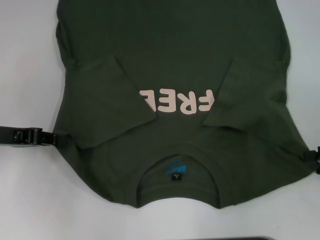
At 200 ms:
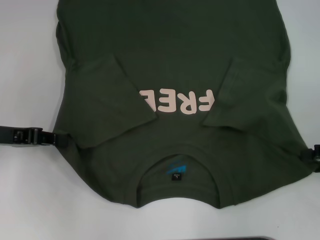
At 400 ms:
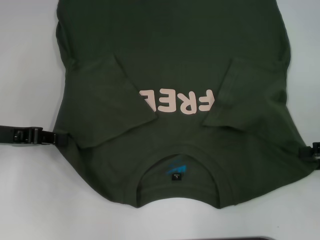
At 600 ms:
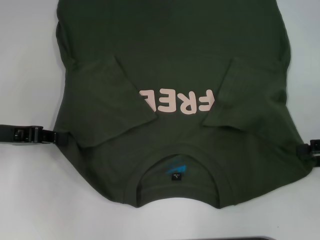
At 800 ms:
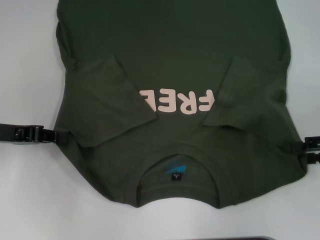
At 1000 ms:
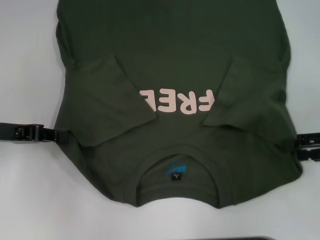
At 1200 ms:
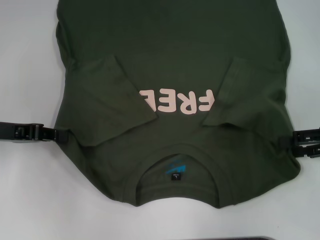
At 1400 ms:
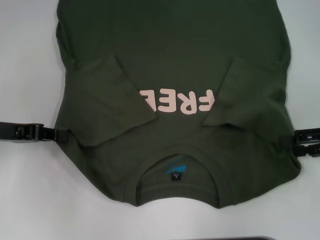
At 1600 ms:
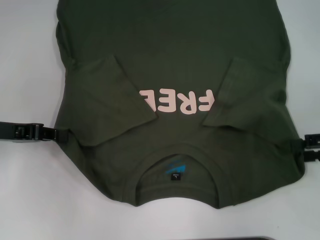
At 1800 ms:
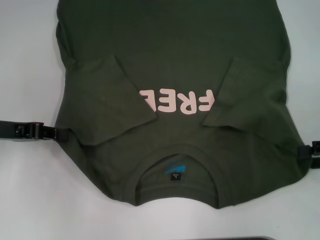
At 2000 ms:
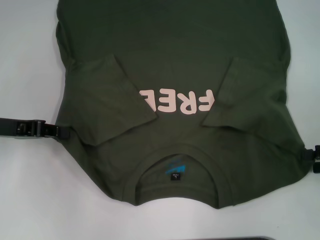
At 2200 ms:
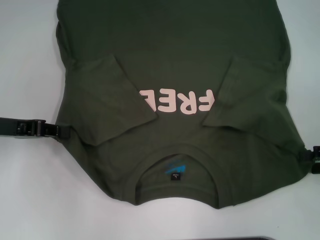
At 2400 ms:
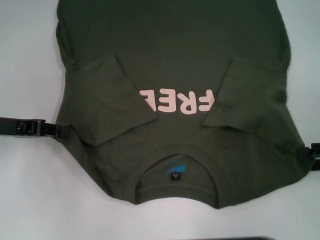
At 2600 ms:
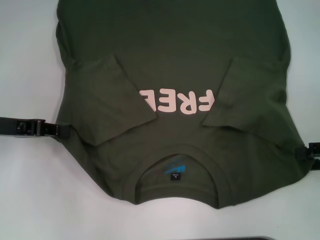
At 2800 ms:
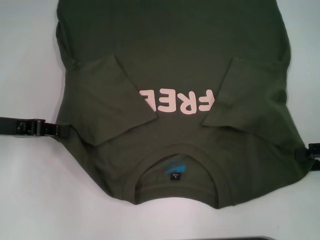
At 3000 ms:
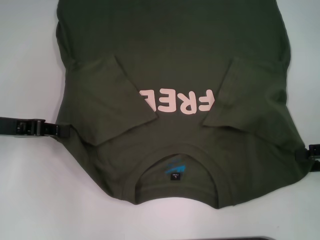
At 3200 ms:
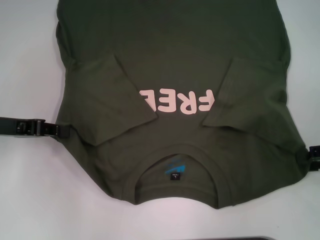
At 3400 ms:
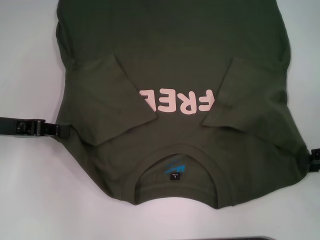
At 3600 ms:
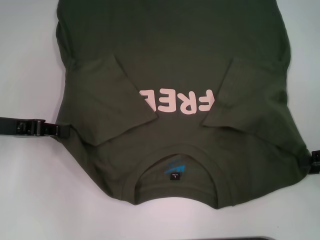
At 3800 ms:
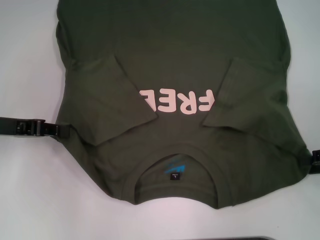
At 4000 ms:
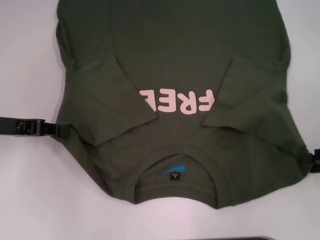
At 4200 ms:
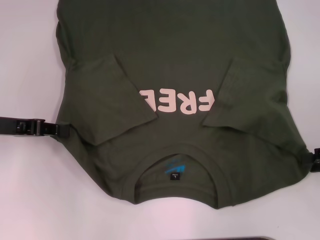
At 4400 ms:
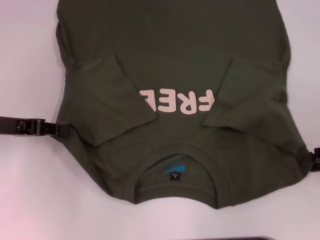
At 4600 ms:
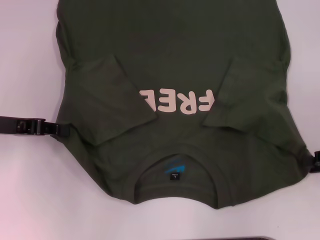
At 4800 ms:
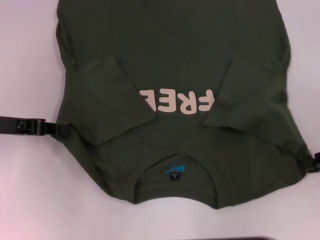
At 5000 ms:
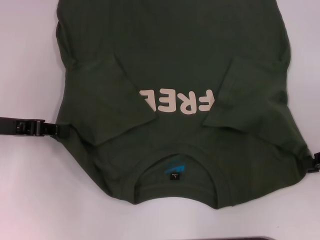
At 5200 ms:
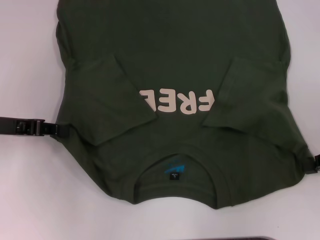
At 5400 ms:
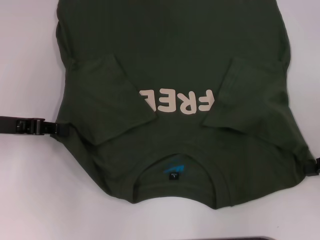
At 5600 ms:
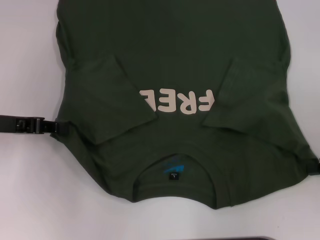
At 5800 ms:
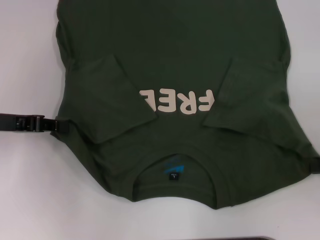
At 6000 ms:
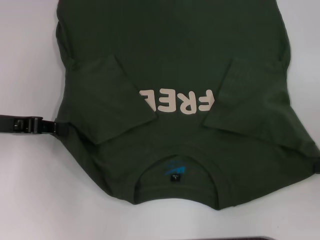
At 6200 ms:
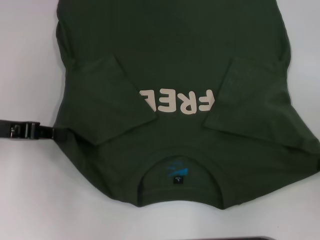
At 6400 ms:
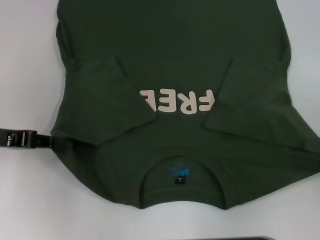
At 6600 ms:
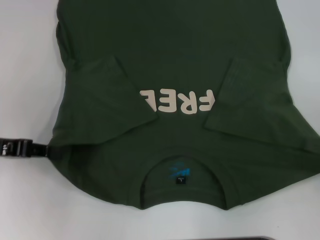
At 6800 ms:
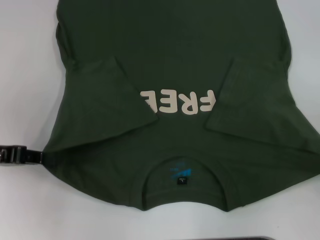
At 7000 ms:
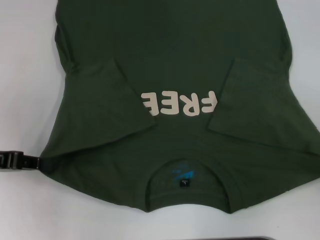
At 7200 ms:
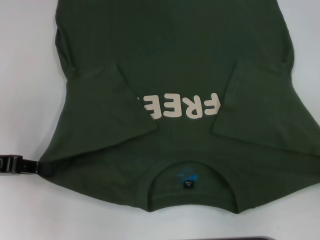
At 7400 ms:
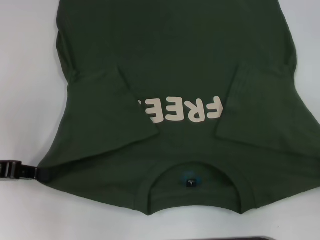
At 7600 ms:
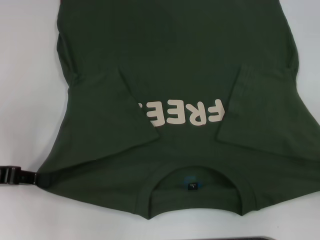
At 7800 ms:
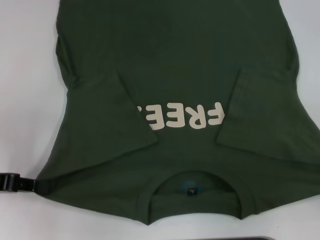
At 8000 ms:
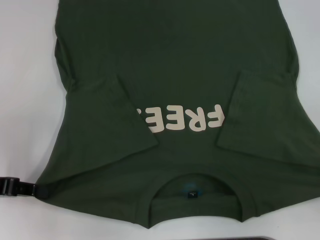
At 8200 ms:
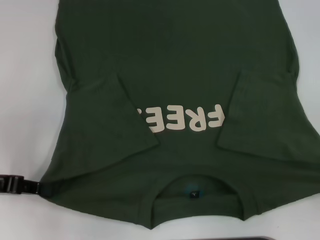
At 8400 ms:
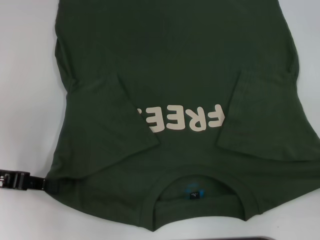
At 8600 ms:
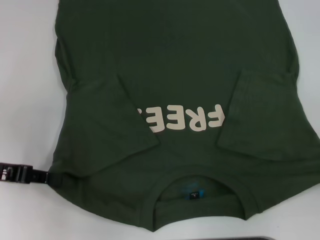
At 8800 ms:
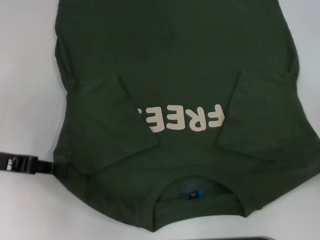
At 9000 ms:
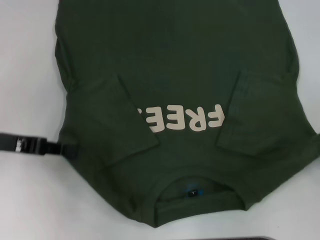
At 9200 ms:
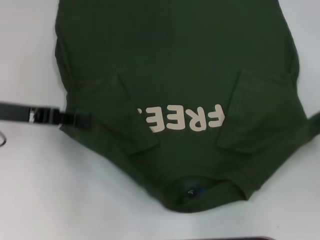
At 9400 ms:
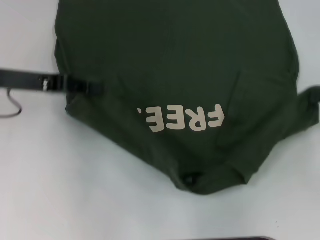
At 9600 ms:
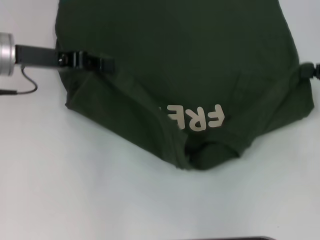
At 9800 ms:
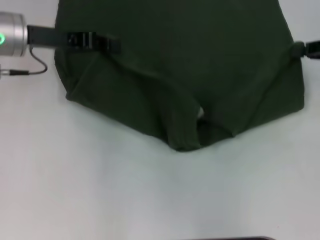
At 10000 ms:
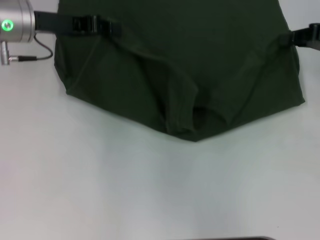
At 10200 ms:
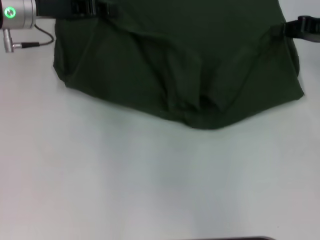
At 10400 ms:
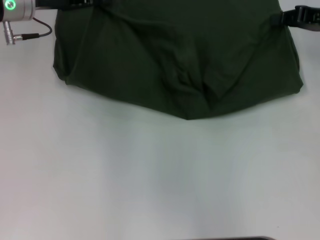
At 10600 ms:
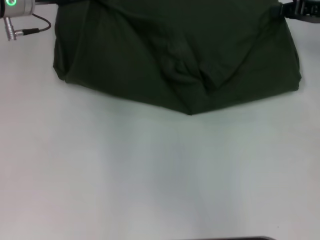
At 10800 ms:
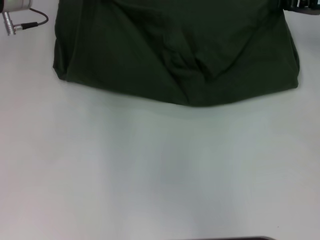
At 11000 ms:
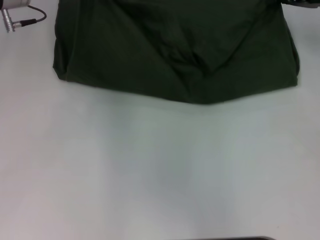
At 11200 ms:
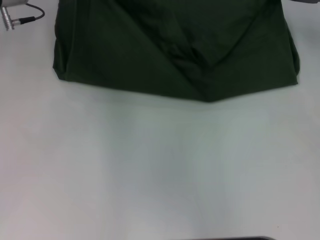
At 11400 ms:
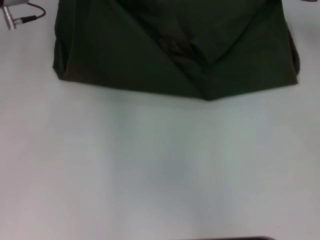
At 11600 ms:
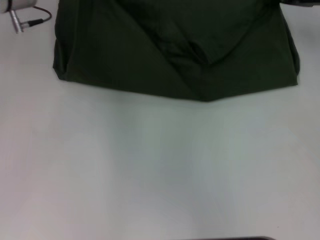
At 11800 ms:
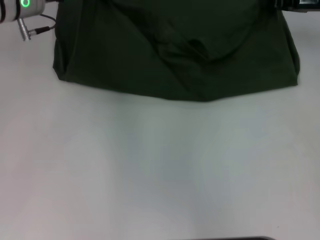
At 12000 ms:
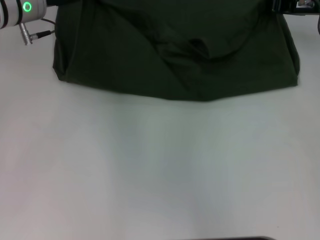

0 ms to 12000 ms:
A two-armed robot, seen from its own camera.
Step, 0 ms to 3800 ms: Grab the bottom right corner with your right hand.
0 ms to 3000 ms: There are only small adjustments of the grippers.
3000 ms to 4400 ms: The right gripper closes its fingers.
4400 ms to 6000 ms: The right gripper closes its fingers.
6000 ms to 7600 ms: The two grippers go approximately 5 cm backward.
7600 ms to 9000 ms: The left gripper ends up approximately 5 cm from where it was. The right gripper moves forward, about 5 cm.
9000 ms to 10400 ms: The right gripper travels forward and to the left by approximately 20 cm. Meanwhile the left gripper heads forward, to the right and upward, covering roughly 20 cm.
10400 ms to 12000 ms: The right gripper ends up roughly 5 cm from where it was.

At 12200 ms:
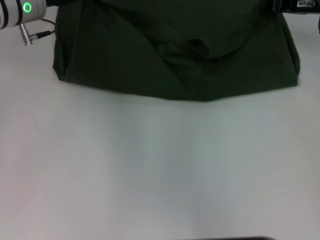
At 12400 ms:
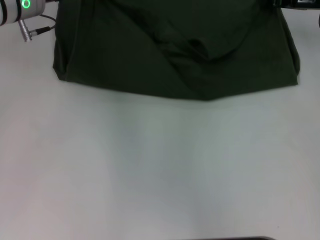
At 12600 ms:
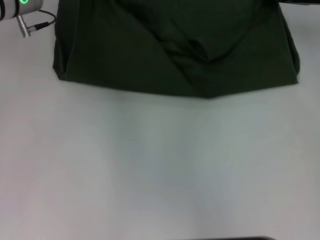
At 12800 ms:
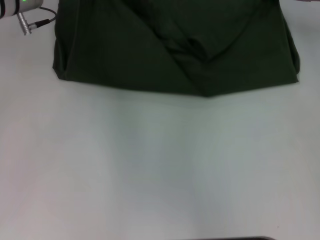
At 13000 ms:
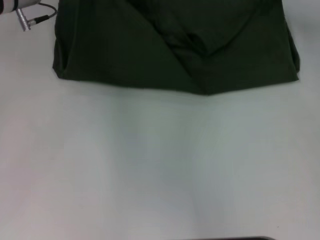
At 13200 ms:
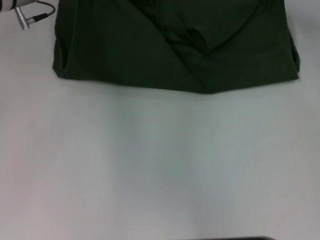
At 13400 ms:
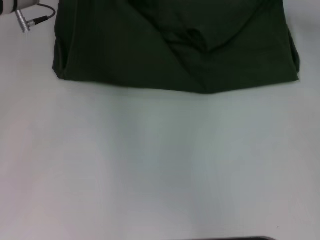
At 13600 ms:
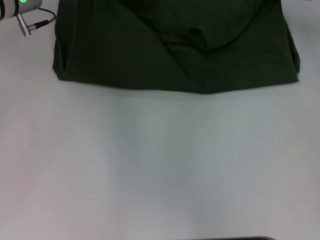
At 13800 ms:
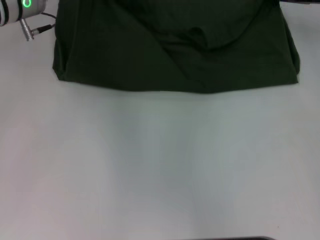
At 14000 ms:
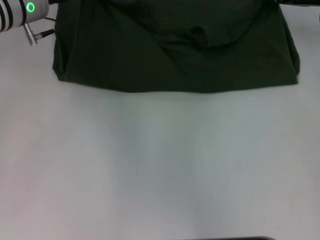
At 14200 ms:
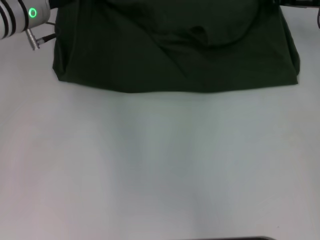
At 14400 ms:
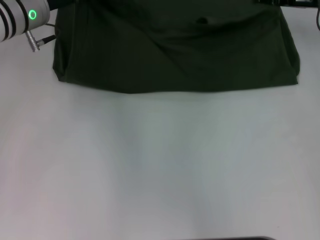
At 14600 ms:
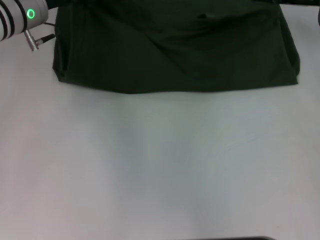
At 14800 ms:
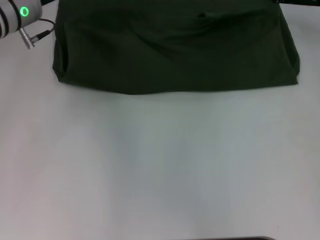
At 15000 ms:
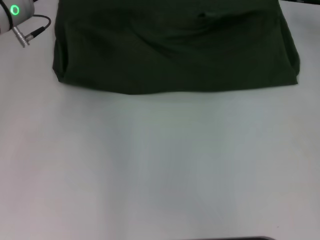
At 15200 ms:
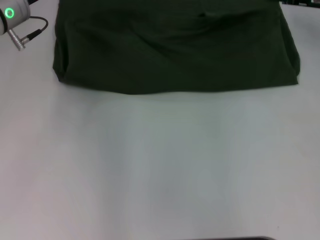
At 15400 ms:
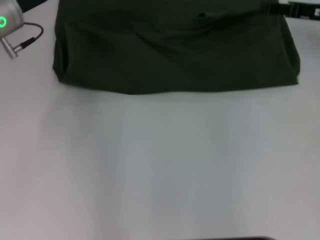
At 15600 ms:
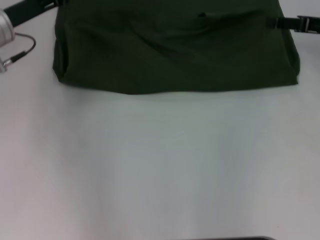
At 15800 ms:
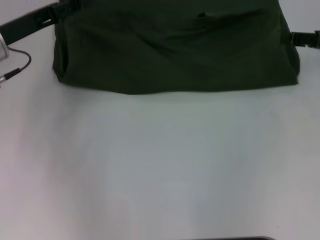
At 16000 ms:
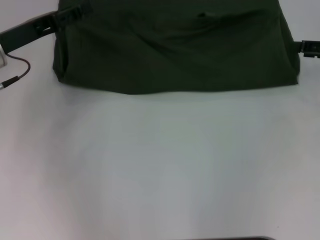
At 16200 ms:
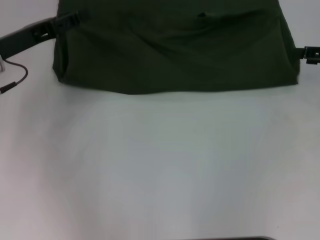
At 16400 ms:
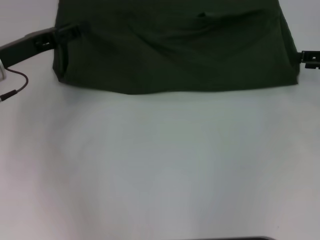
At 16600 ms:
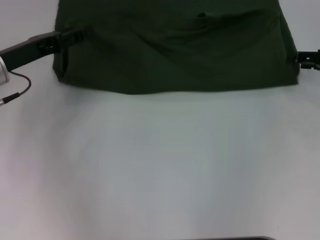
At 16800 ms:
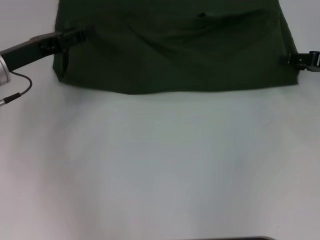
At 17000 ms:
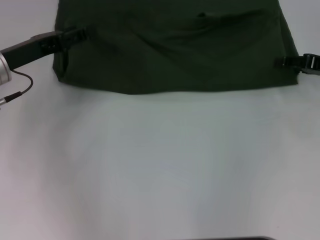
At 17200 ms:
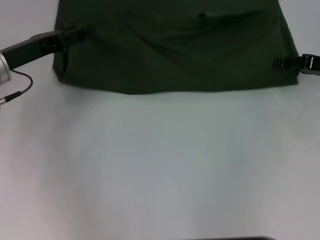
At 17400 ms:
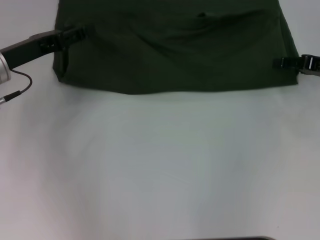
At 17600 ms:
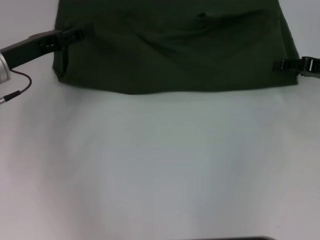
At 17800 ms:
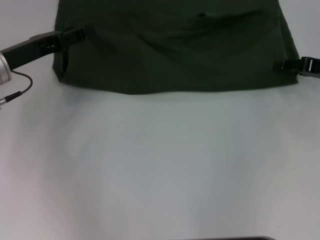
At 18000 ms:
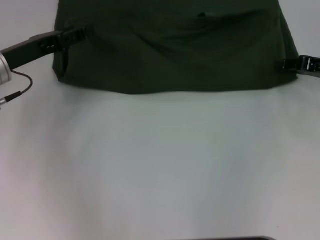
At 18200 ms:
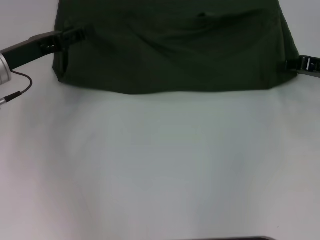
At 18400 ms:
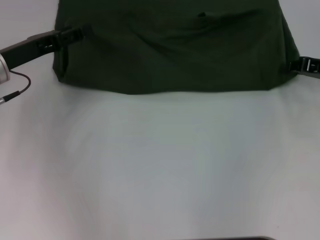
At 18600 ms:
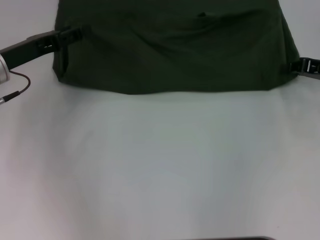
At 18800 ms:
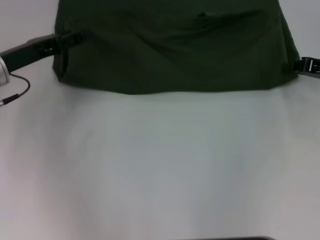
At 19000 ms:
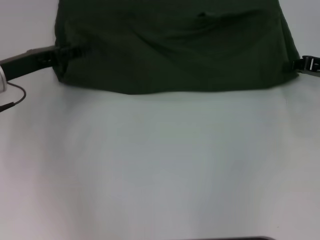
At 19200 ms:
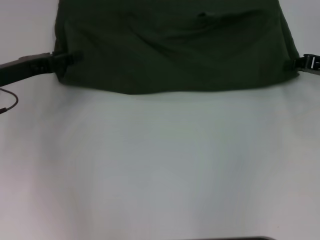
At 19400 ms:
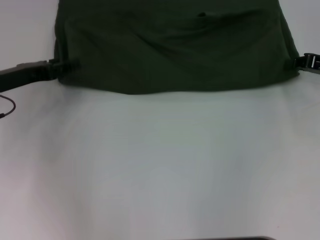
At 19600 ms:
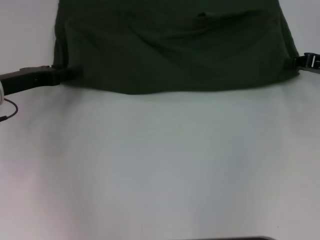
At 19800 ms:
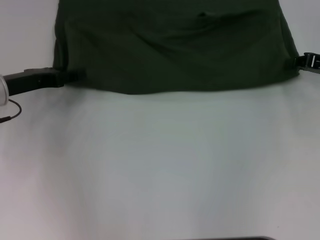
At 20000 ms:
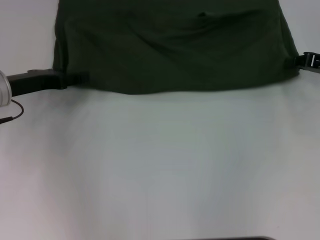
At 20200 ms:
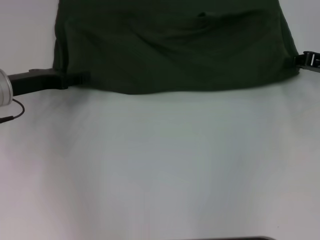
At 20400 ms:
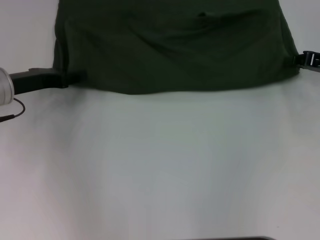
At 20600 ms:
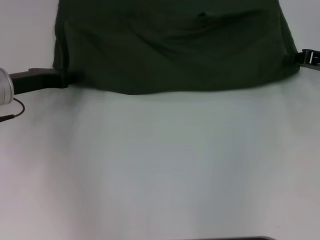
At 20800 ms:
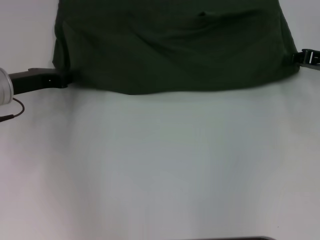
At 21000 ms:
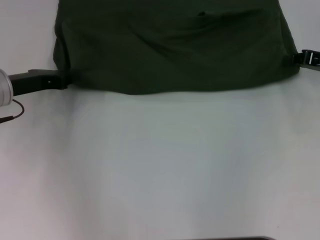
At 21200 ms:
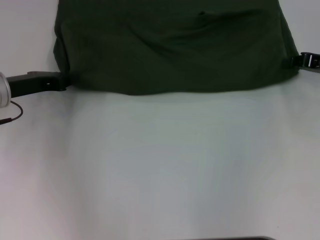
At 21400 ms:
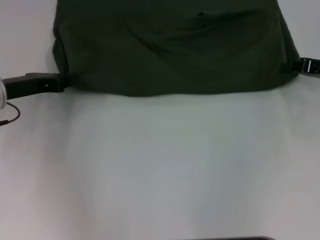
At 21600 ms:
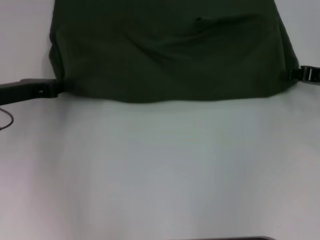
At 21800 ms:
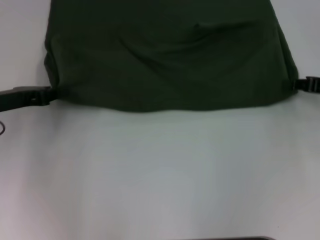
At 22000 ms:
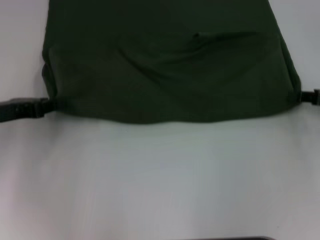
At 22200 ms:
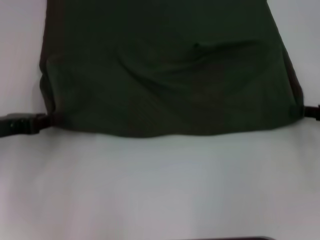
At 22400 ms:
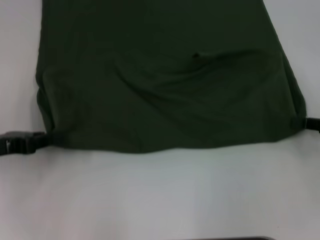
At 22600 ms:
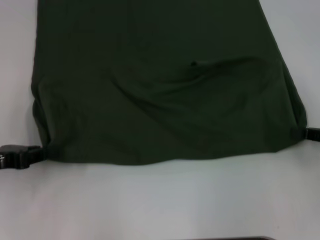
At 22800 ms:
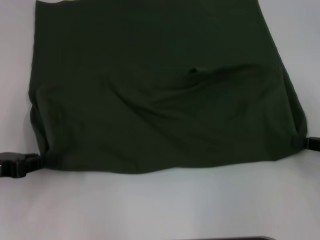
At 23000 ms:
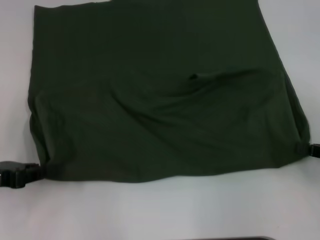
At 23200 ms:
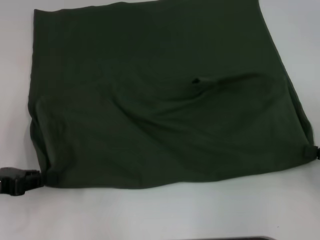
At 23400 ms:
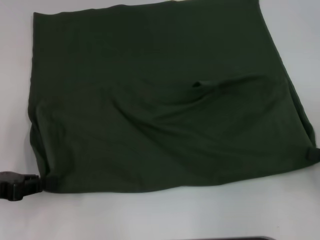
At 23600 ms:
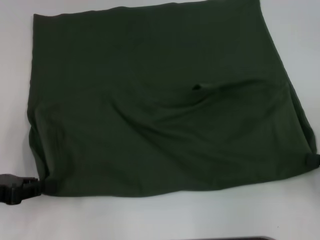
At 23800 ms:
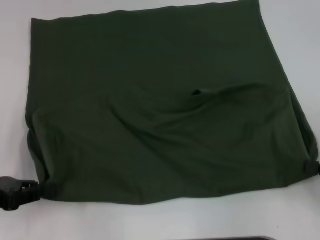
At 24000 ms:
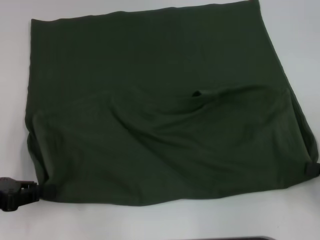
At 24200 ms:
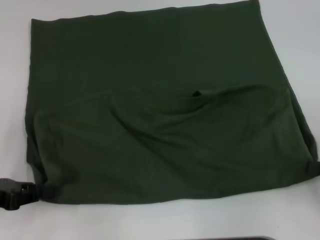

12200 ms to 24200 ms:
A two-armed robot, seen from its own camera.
Step, 12200 ms to 14800 ms: Fold the clothes with your left hand.
Step, 12200 ms to 14800 ms: Fold the clothes with your right hand.
12200 ms to 13800 ms: There are only small adjustments of the grippers.
13800 ms to 15200 ms: The left gripper opens up, while the right gripper opens up.
15200 ms to 16600 ms: The left gripper is displaced backward by roughly 5 cm; the right gripper goes about 10 cm backward and to the right.
16600 ms to 18200 ms: The right gripper closes.
18200 ms to 19800 ms: The grippers stay close to where they were, moving slightly.
19800 ms to 21200 ms: The left gripper closes up.
21200 ms to 22600 ms: The right gripper moves backward, approximately 10 cm. Meanwhile the left gripper moves backward and to the left, approximately 10 cm.
22600 ms to 24200 ms: The right gripper goes roughly 5 cm backward.
